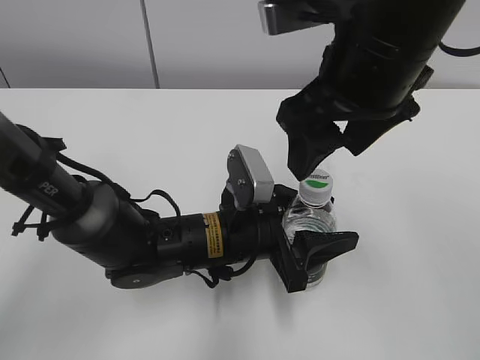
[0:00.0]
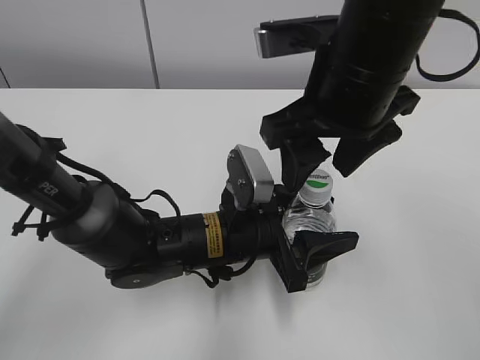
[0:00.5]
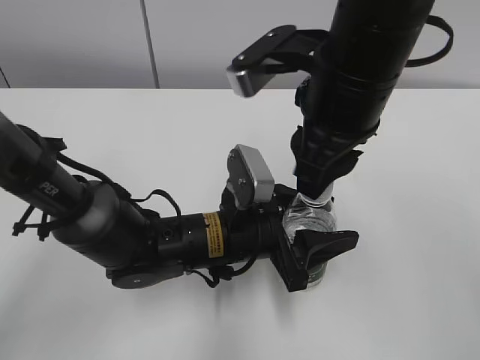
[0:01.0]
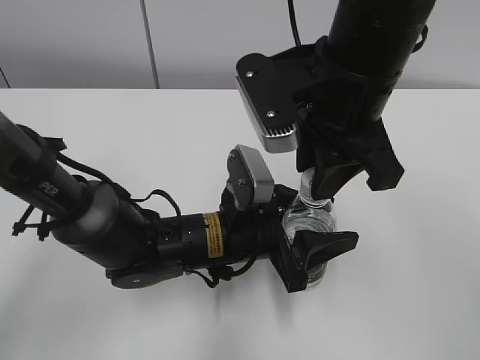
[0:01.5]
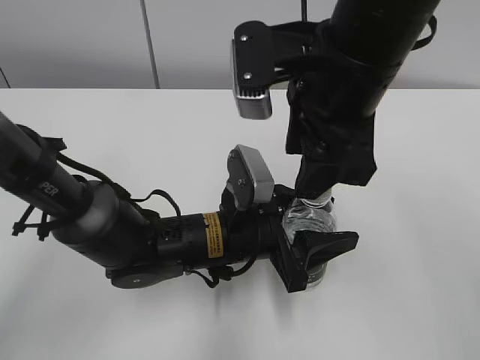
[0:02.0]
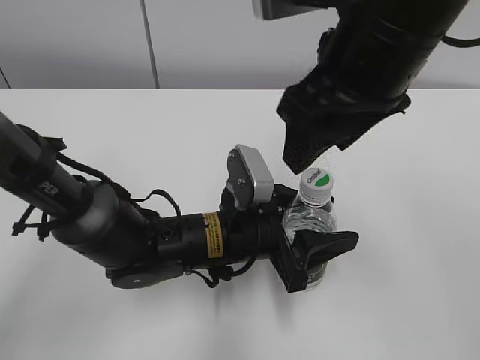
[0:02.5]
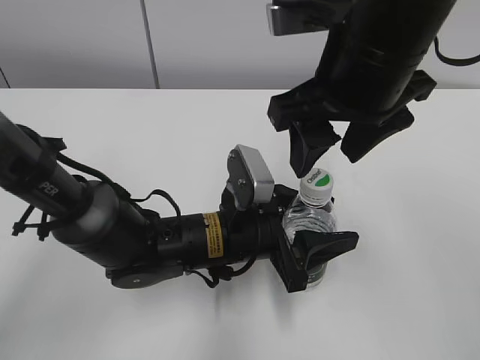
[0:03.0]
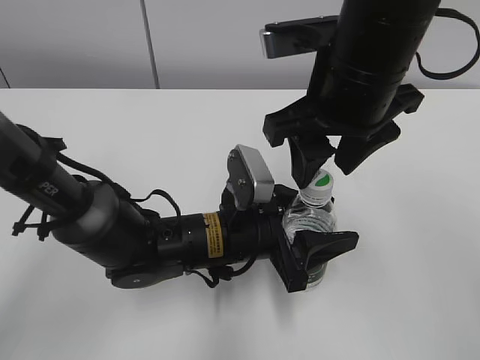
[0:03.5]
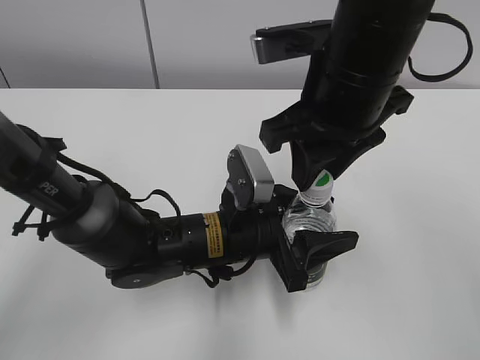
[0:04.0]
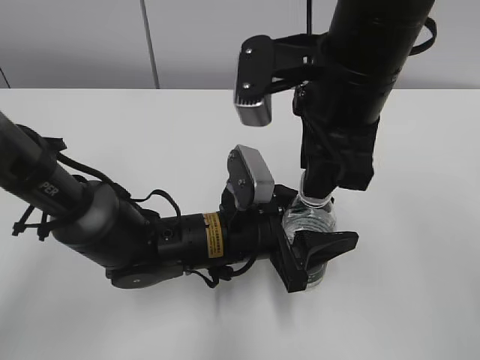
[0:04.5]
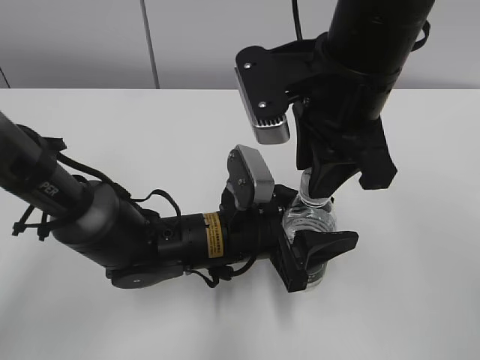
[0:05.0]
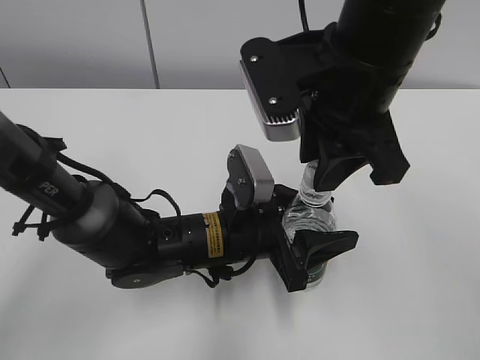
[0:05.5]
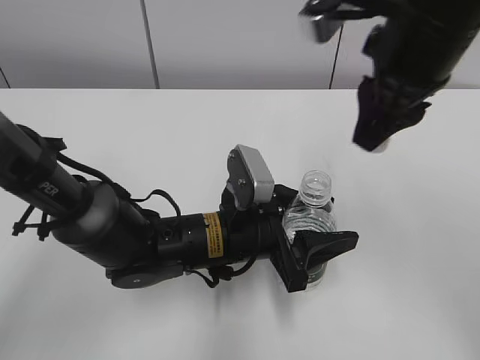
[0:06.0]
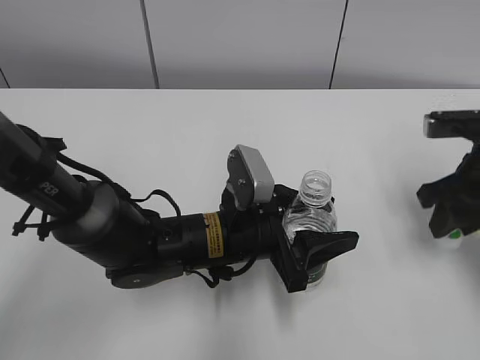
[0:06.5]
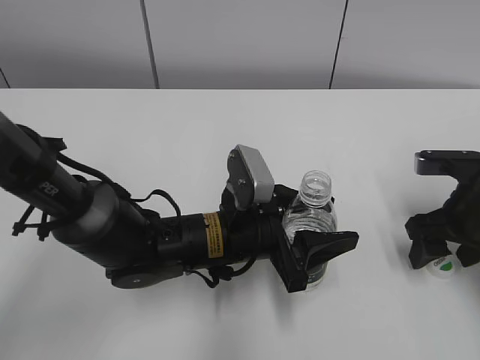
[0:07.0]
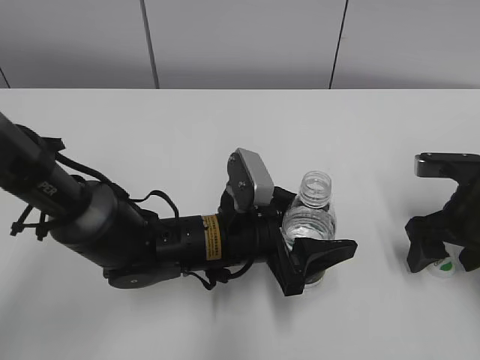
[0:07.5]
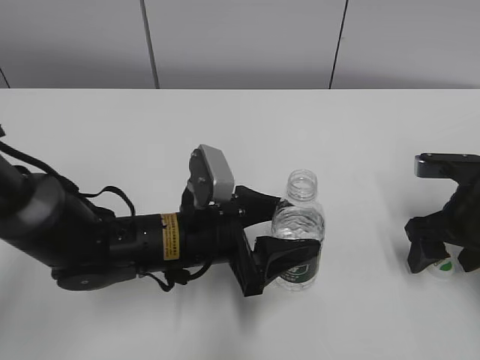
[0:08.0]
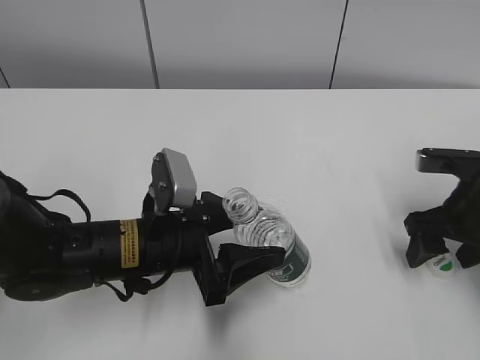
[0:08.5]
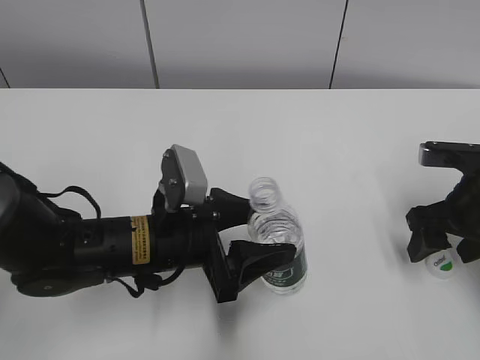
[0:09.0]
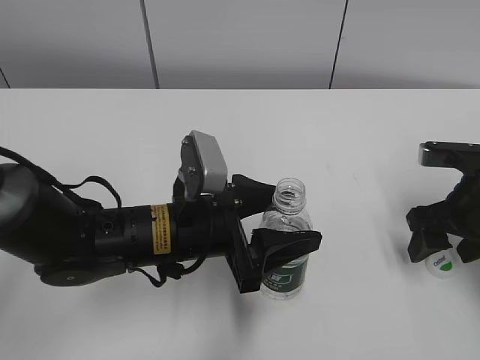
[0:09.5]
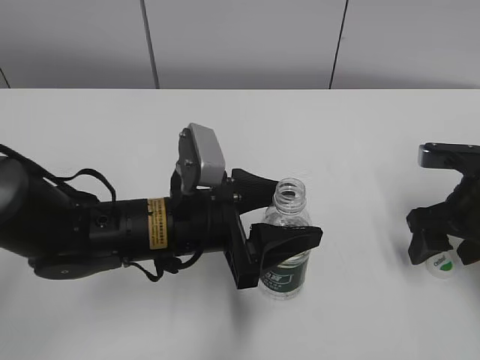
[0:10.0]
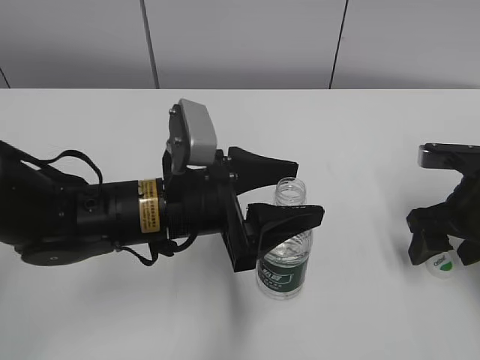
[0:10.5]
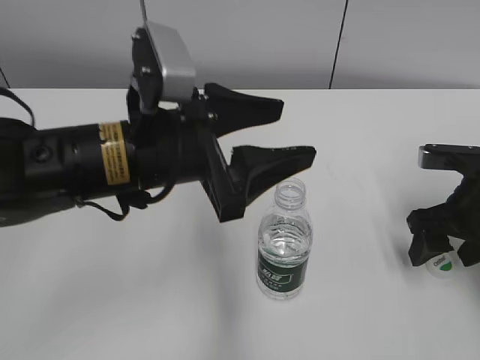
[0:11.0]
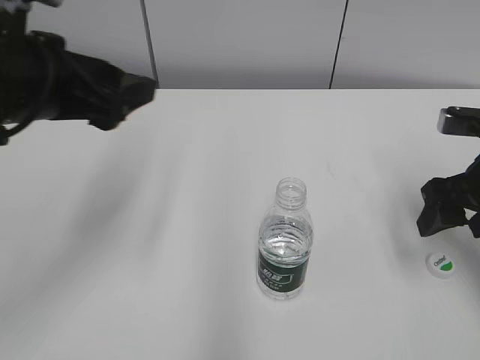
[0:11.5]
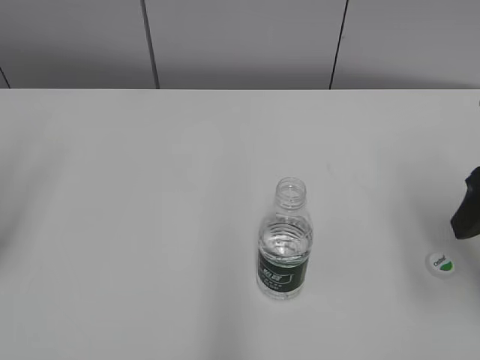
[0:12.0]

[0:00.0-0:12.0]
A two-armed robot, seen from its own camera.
Step, 0:06.0 to 0:06.5: Place the bottle cap on the table with the right hand.
Step, 0:07.0 to 0:09.5: Place the C'estbon with the left hand.
0:00.0 to 0:02.0: The right gripper closes up.
0:02.0 to 0:04.0: The right gripper closes.
0:04.0 to 0:06.0: The right gripper goes about 5 cm to the right.
0:06.0 to 0:08.0: The right gripper moves downward and to the right, some 25 cm, and opens its fingers.
0:08.0 to 0:10.0: The grippers make only small movements.
0:10.0 to 0:12.0: The left gripper goes approximately 30 cm to the left and upward; the right gripper goes roughly 10 cm upward.
